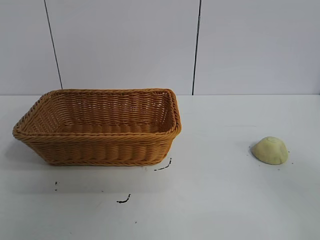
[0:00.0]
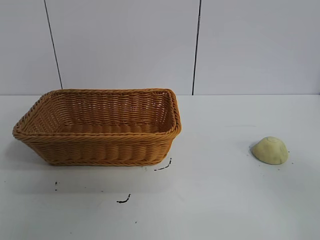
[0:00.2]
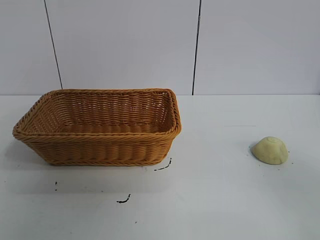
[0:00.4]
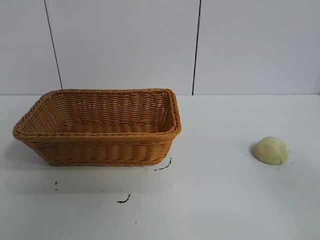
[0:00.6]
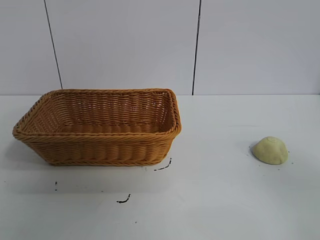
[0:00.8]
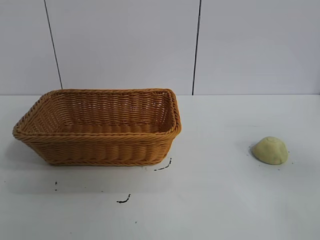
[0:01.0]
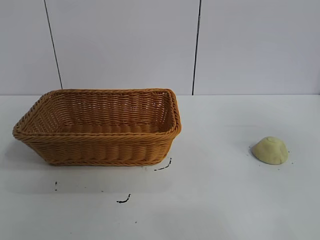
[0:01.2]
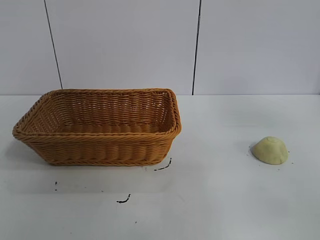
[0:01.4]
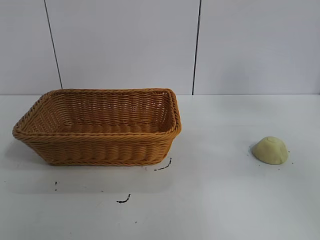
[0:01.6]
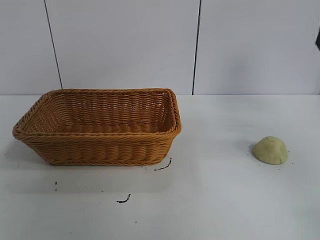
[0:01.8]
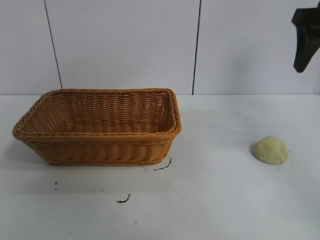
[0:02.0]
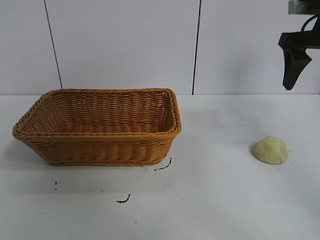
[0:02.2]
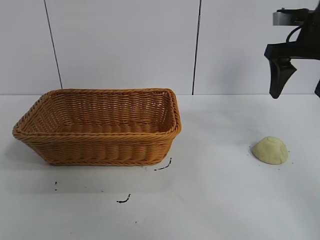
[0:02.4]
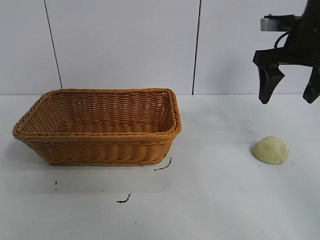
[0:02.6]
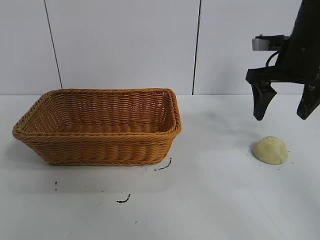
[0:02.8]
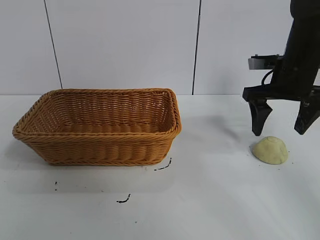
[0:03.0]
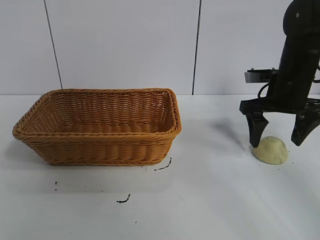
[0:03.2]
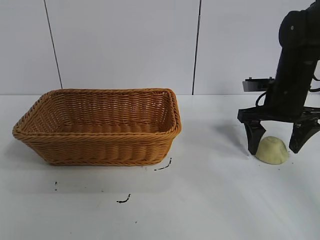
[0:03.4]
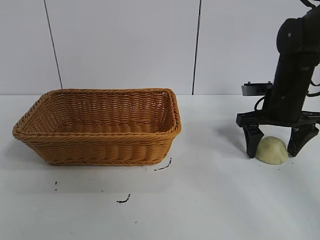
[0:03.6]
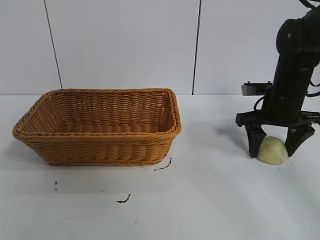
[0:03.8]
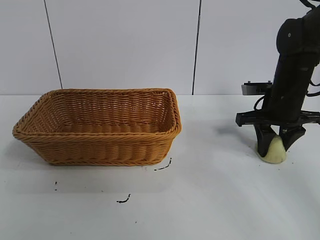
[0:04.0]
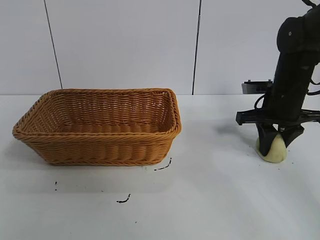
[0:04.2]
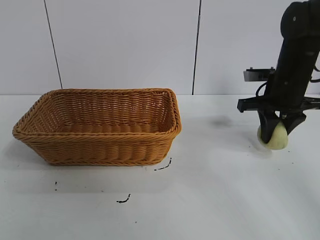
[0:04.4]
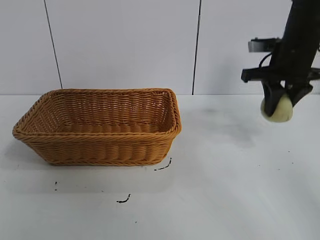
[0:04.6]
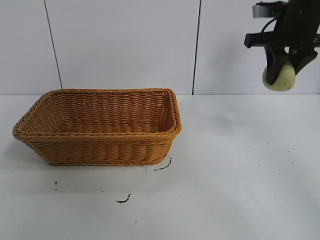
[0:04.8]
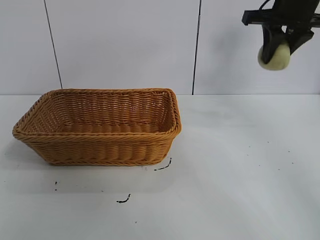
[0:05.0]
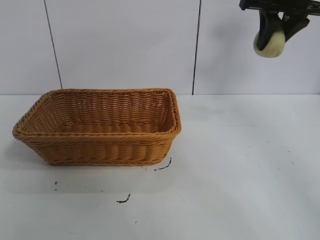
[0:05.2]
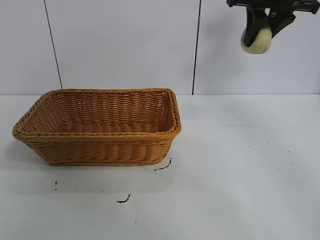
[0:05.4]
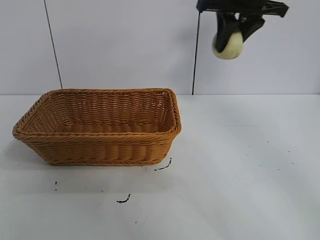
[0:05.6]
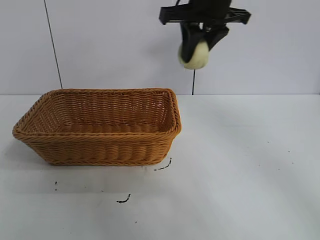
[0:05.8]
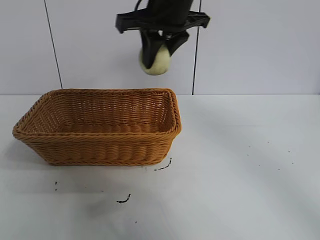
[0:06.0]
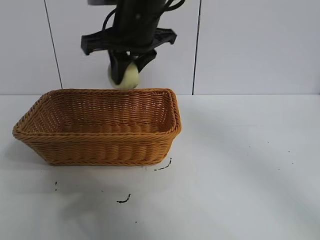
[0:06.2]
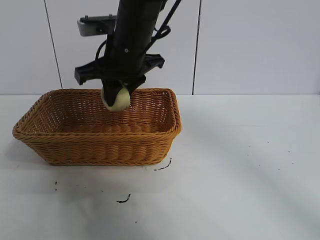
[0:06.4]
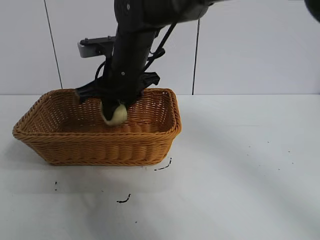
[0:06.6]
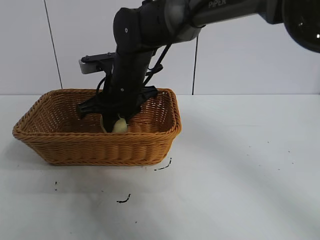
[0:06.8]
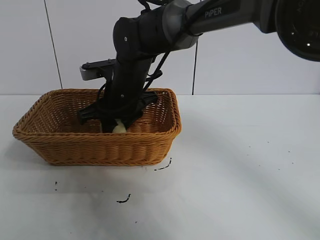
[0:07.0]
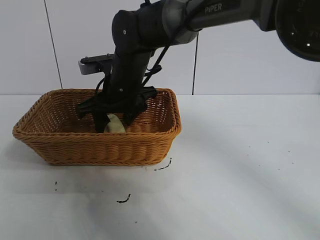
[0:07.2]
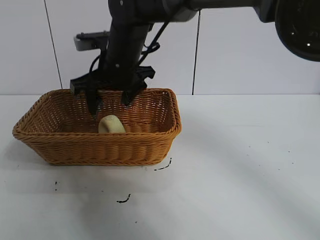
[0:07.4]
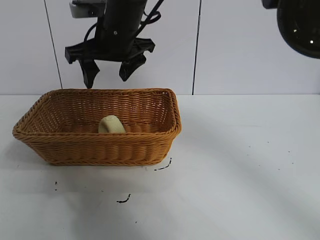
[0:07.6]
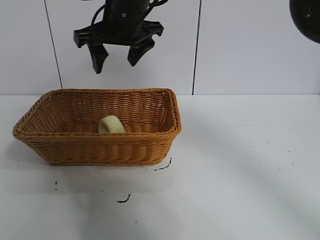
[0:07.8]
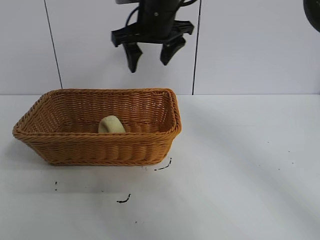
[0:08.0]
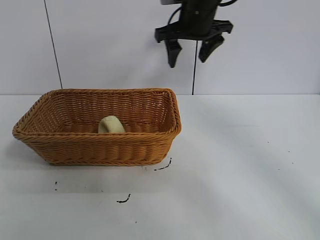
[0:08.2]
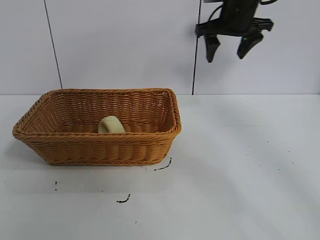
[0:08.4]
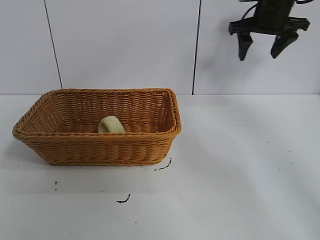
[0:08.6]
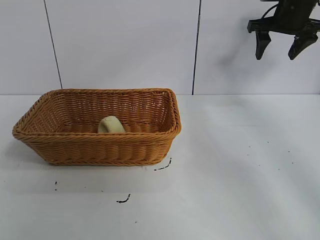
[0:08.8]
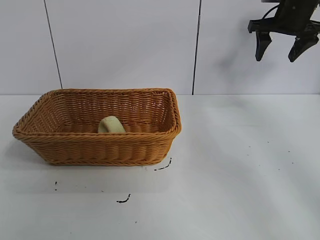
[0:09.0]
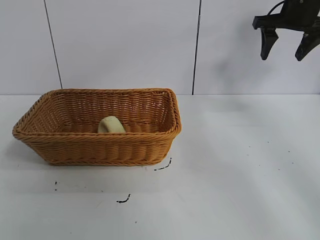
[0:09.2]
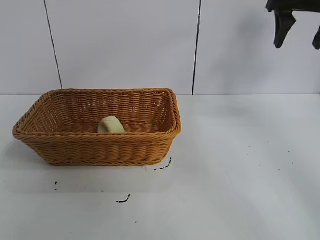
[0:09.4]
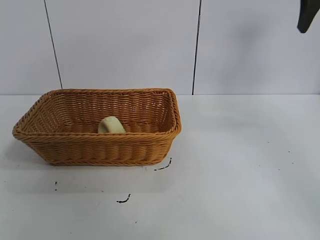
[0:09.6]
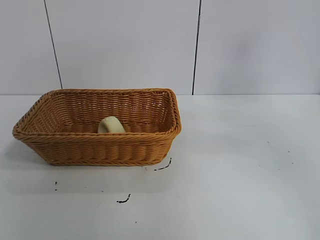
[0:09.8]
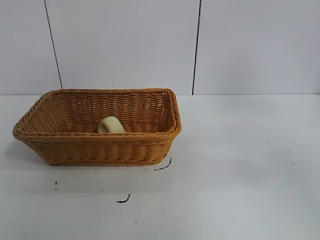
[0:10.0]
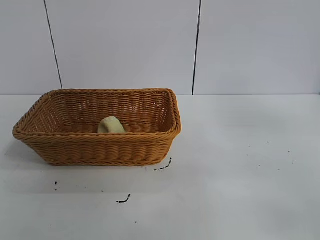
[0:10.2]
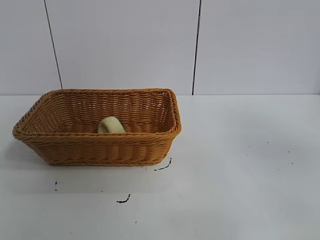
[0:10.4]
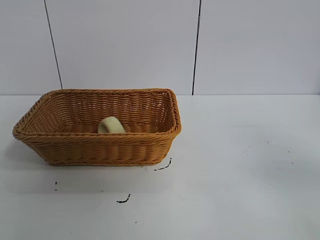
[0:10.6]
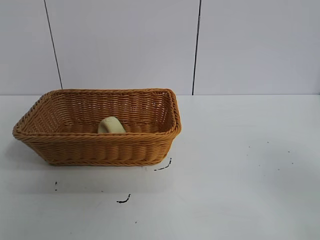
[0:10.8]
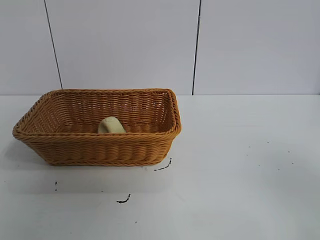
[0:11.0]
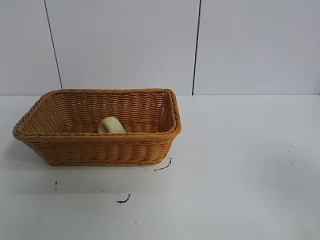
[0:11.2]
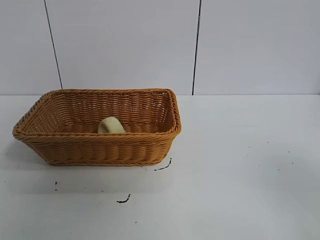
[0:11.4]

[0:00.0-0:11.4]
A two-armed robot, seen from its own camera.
Task of the whole recording: pick up the egg yolk pastry and put it into the basket.
Step, 0:00.8 to 0:04.0: Grasp egg yolk pastry with right gripper.
Step, 0:04.2 to 0:07.2: Place the egg yolk pastry in the basket with right gripper.

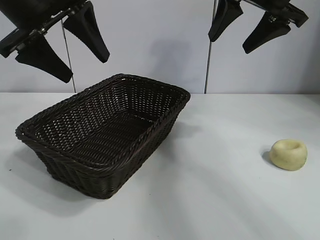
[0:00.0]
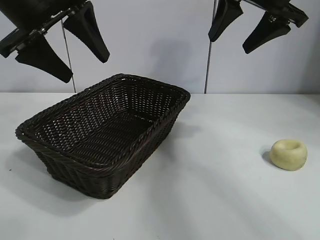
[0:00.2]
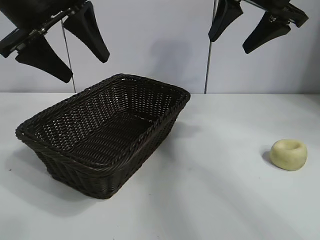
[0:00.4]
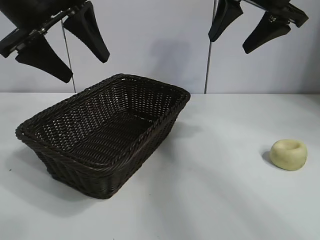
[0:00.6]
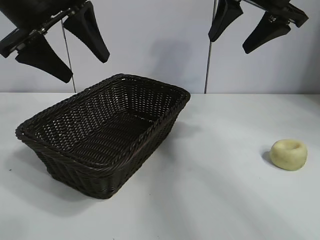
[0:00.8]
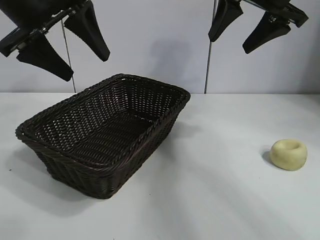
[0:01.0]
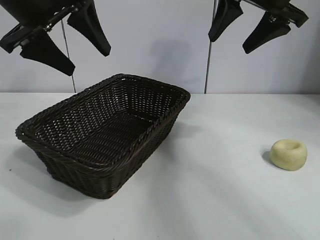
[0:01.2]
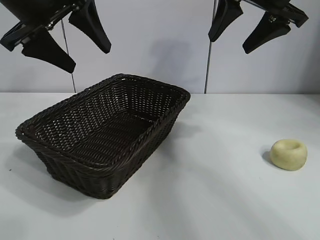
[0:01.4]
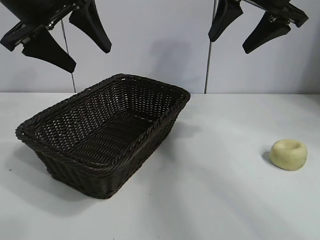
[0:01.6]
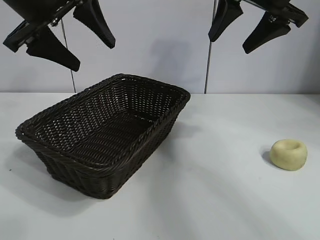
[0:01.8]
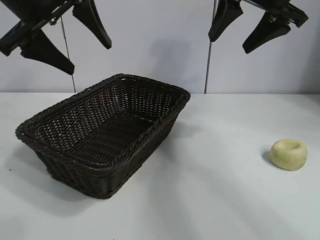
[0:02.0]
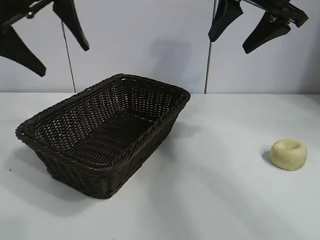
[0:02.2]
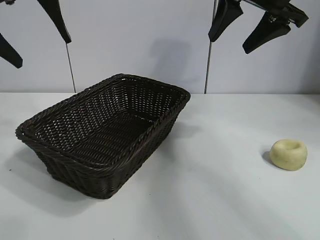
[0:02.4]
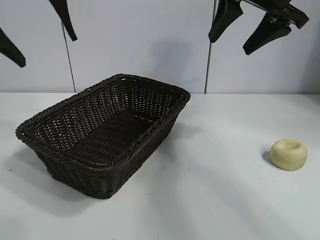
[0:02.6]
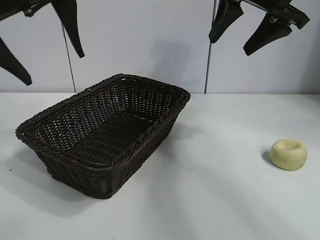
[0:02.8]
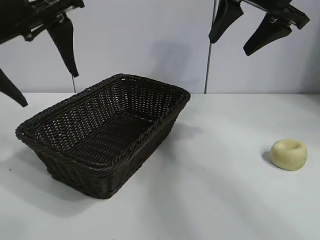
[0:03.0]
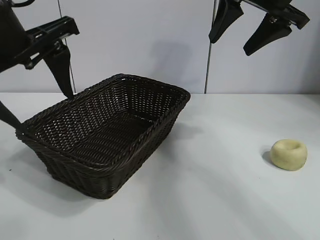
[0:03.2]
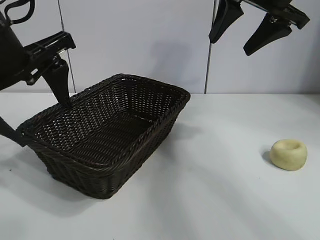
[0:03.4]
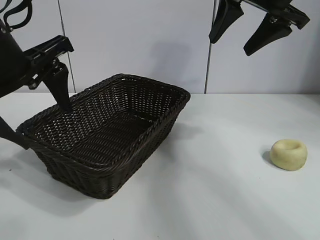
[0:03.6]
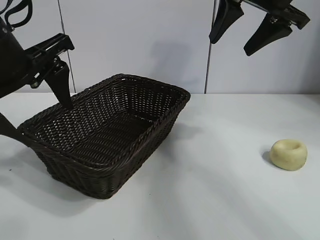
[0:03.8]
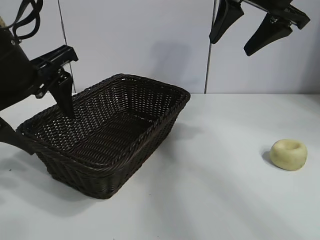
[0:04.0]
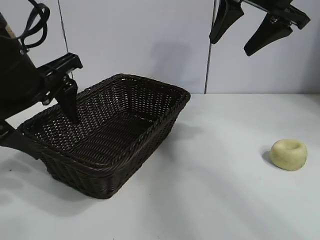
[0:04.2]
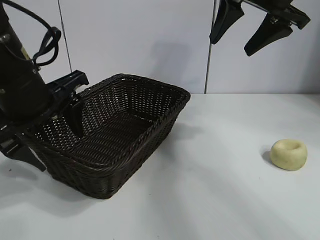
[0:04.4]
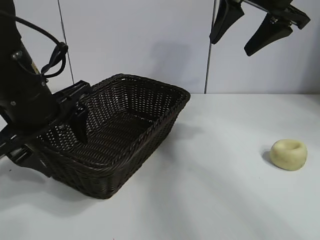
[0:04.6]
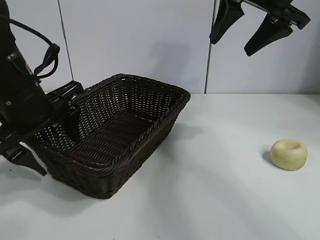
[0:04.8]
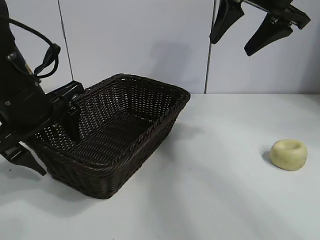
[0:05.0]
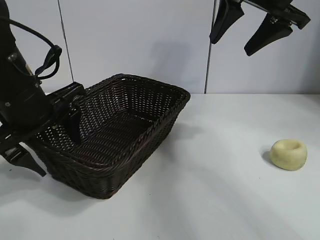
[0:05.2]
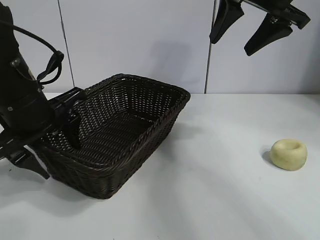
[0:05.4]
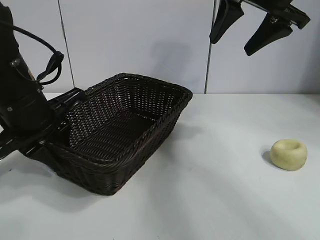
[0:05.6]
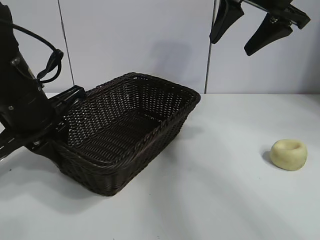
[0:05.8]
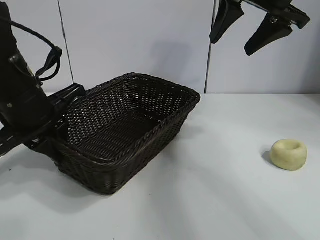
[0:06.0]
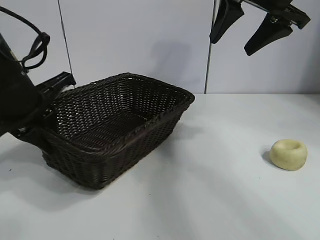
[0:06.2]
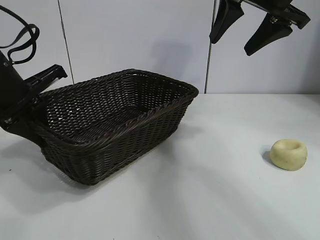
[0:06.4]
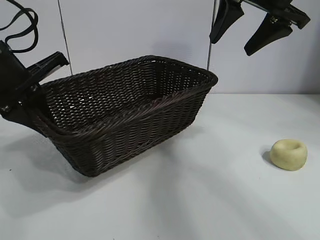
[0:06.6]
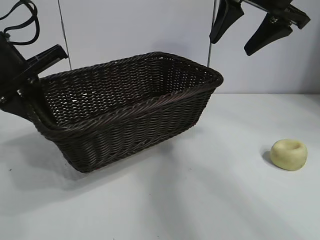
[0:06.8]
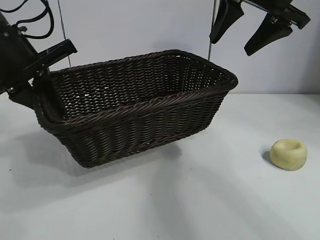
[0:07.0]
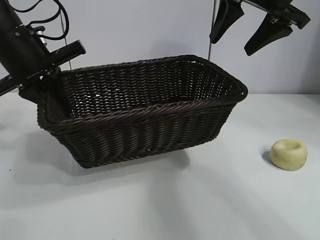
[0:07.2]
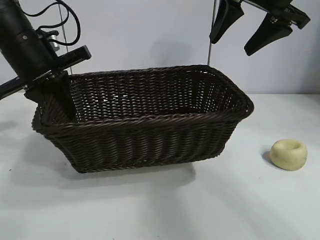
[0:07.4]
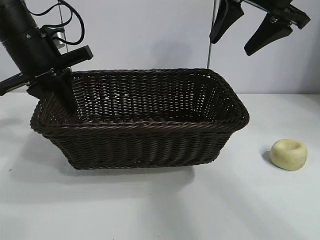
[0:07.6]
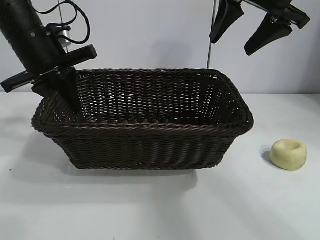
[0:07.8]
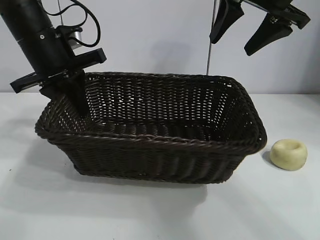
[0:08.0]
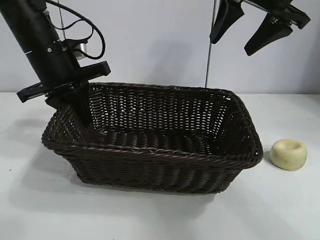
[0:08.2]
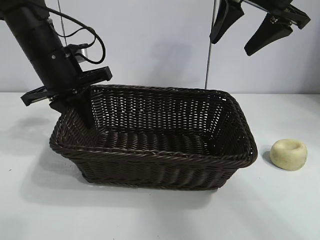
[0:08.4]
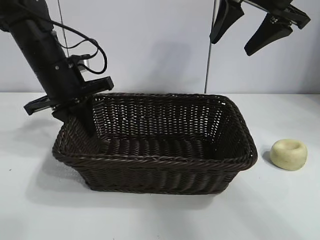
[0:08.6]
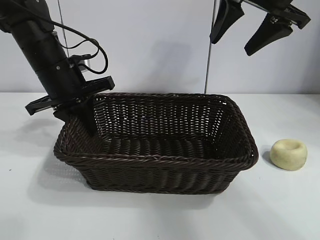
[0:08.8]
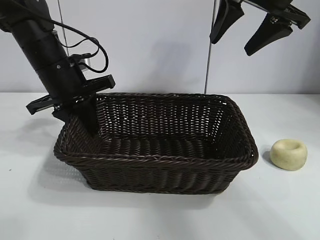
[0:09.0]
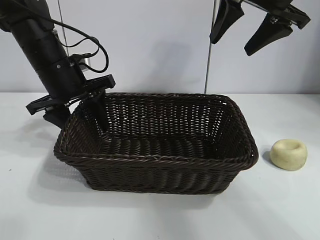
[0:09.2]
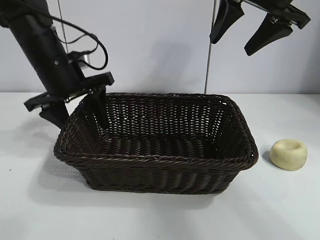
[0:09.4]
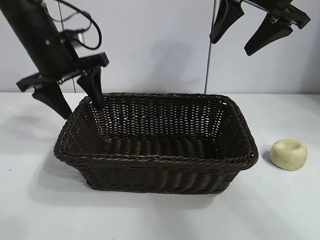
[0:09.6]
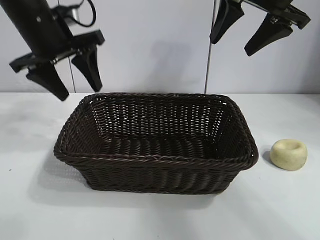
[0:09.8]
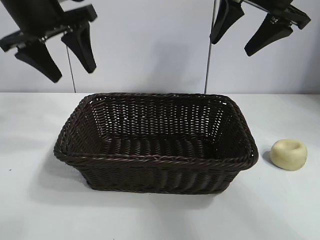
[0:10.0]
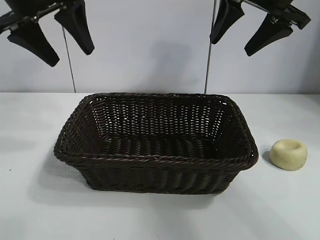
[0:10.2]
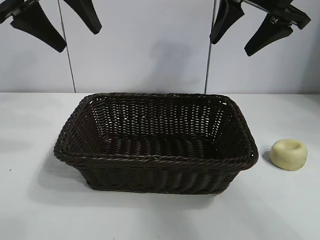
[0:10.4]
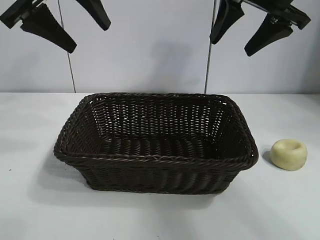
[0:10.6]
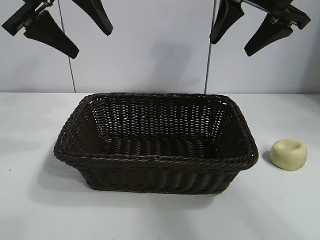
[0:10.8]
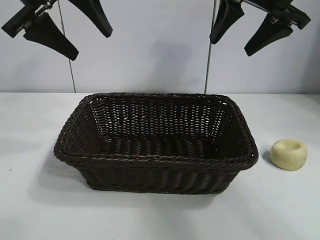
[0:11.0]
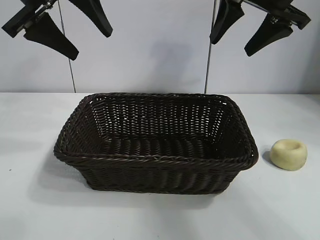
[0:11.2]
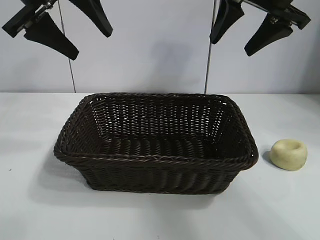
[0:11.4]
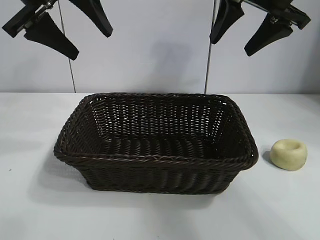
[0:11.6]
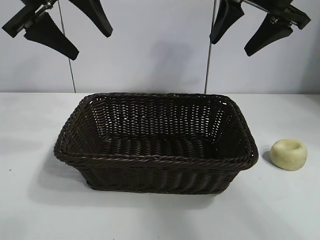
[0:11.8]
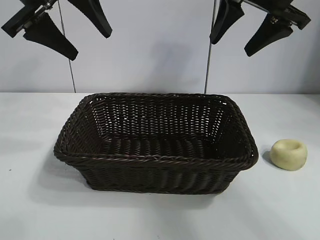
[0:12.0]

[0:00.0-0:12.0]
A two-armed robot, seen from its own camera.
Task of the whole recording: pick up the egg yolk pastry and put it into the basket.
Step, 0:01.0 to 0:05.6: Grasp the basket with left gripper.
Step, 0:05.8 to 0:09.4: Place the basket in the center of view with left gripper.
